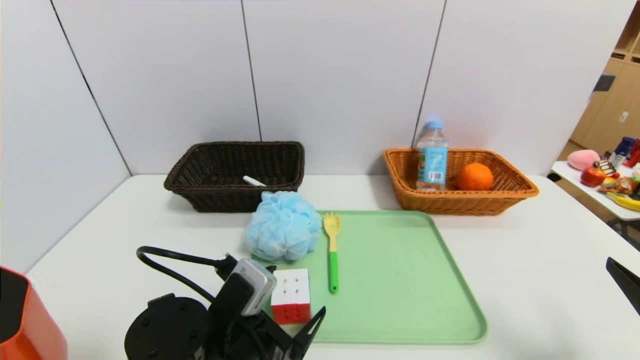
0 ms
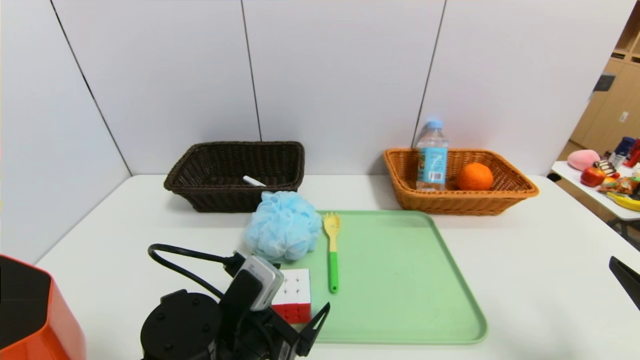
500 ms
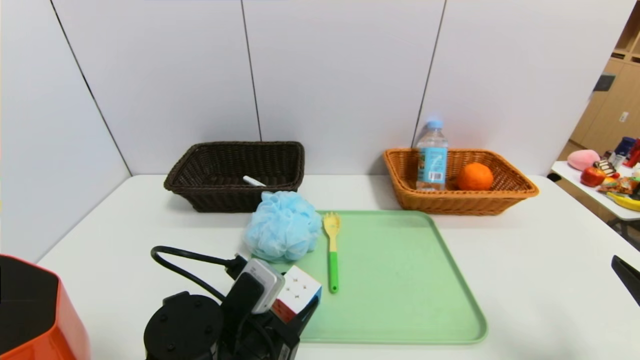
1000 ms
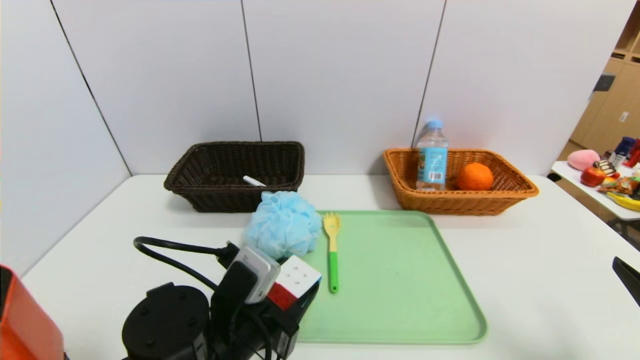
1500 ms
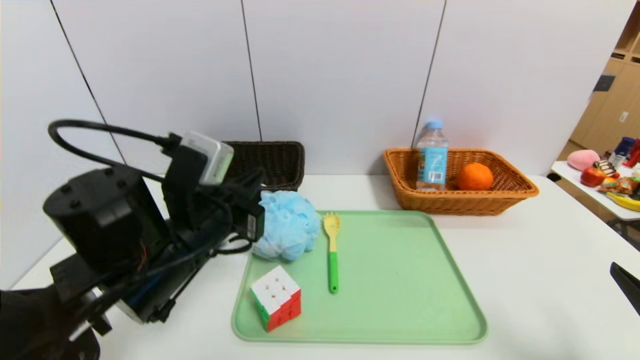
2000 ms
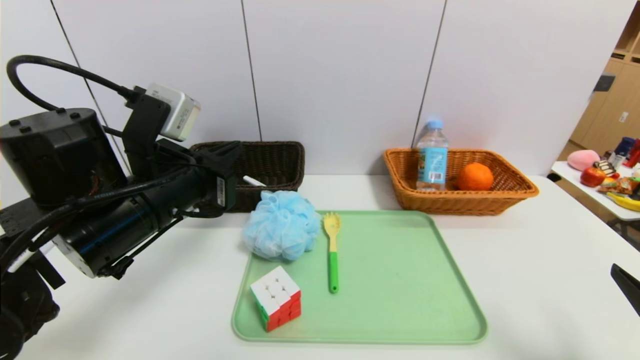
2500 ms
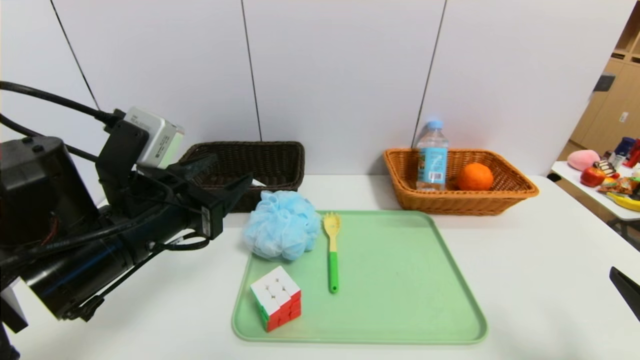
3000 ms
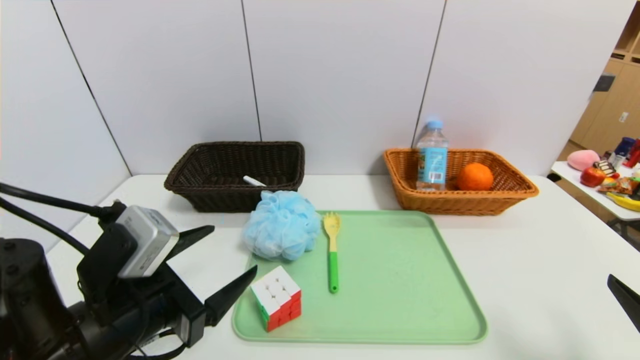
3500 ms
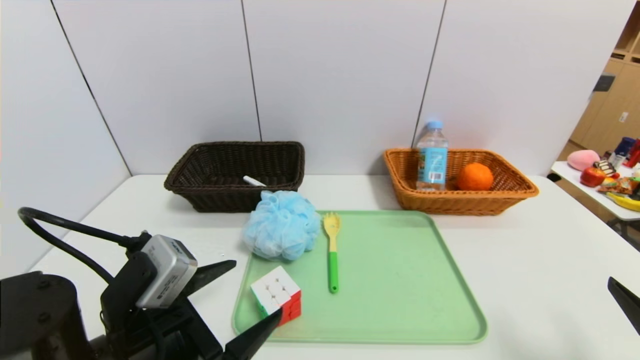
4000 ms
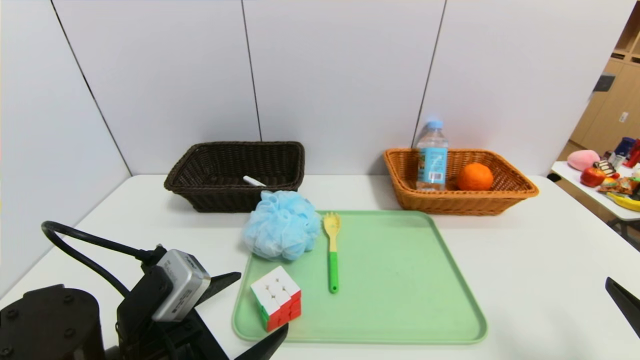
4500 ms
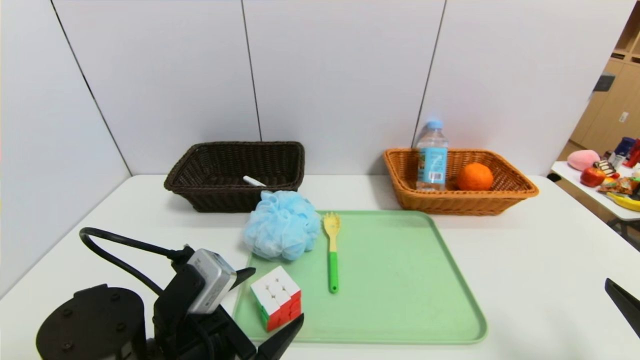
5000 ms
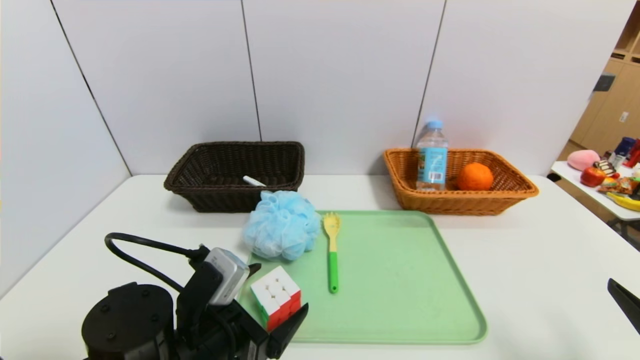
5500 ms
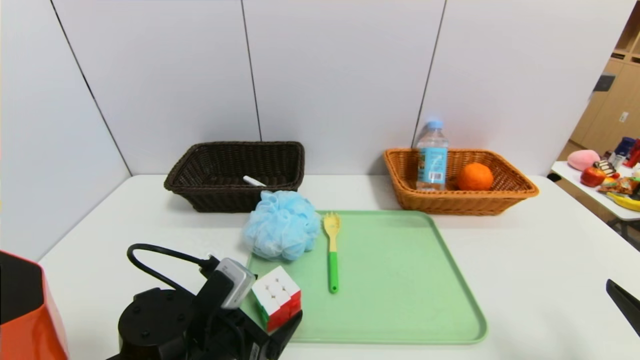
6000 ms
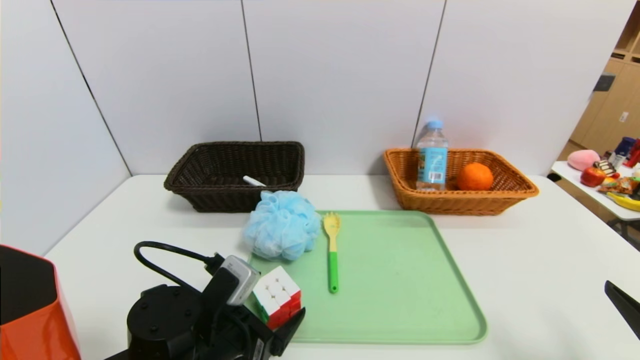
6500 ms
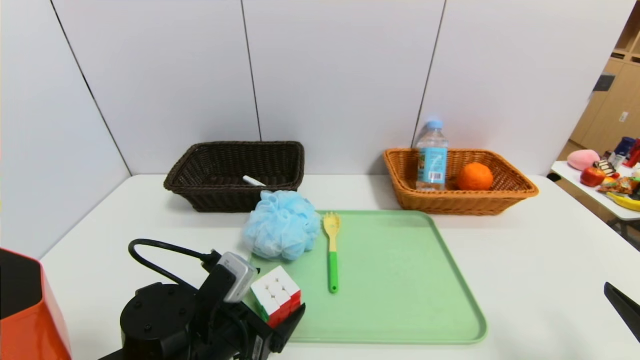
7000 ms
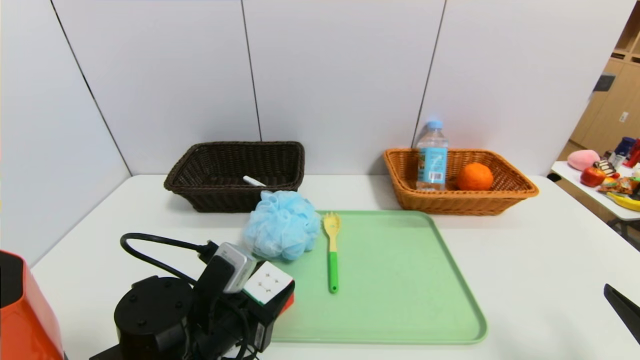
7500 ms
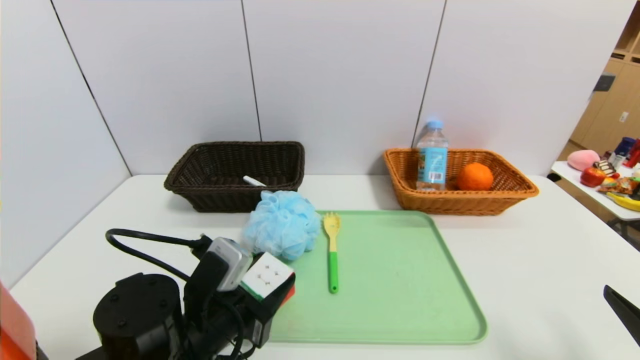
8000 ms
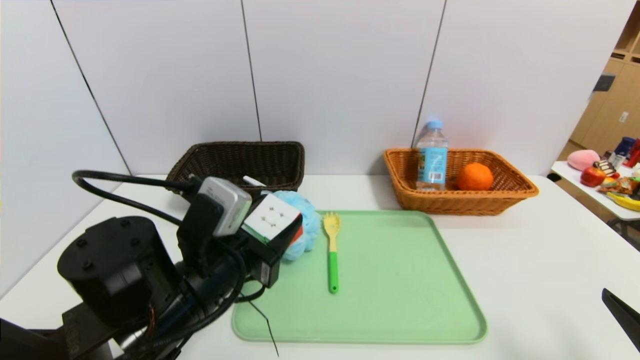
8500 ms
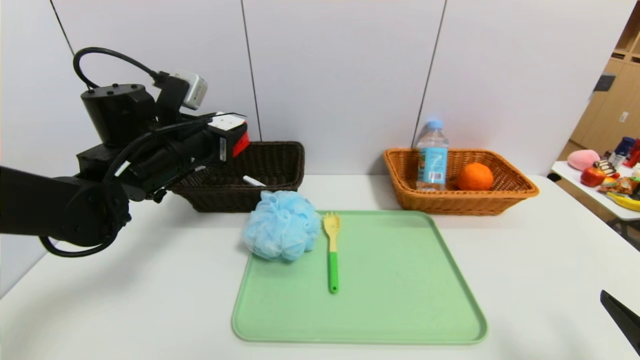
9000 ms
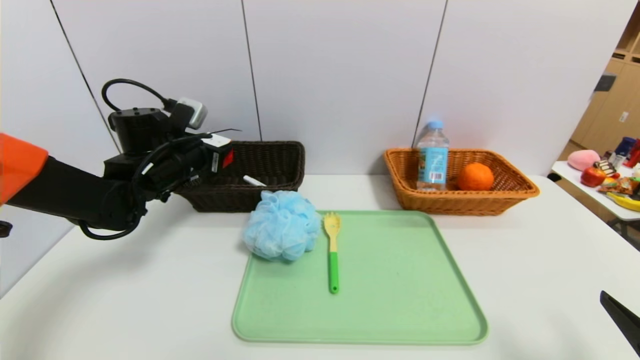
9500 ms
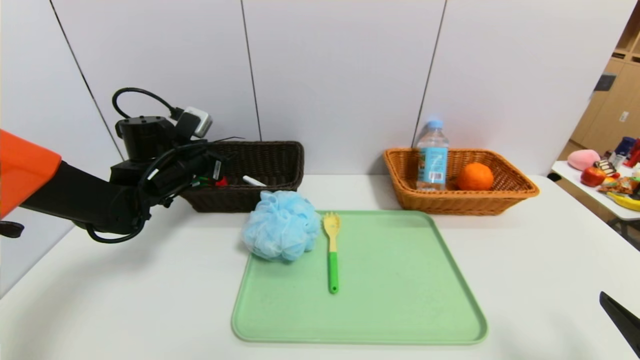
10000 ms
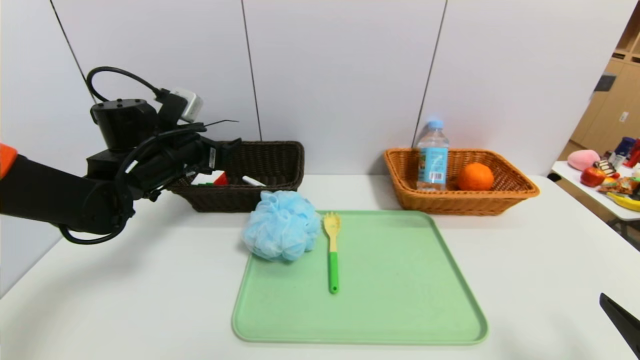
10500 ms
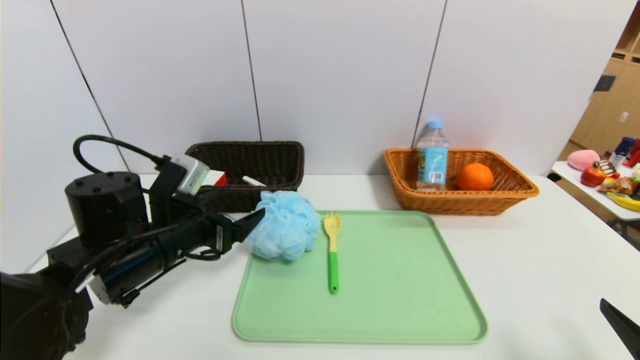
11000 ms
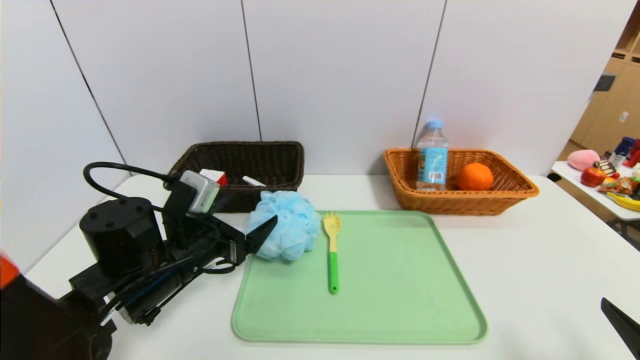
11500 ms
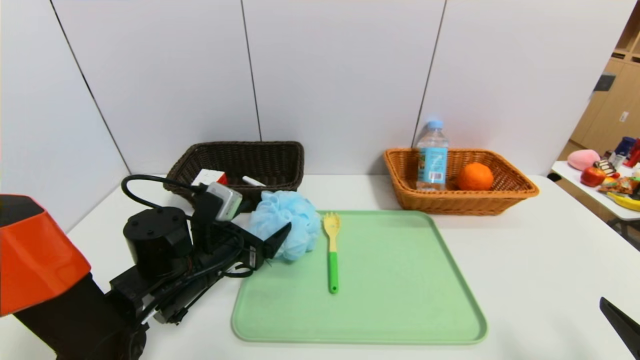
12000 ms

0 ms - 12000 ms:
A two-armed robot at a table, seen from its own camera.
Task of the whole recording: place the food in the right basket with the right gripper, and place the non food items in the left basket with the left gripper.
Step, 0 ms - 10000 ms: Grasp the rubiks cube and put it in the left basket.
0 ms - 2000 ms: The left gripper shifts some 15 cm upward and forward, and closes its fingers.
2000 ms - 4000 ms: The left gripper travels backward and downward by approximately 10 cm, and opens its fingers.
4000 ms - 6000 ms: The left gripper shifts approximately 10 cm downward.
6000 ms - 8000 ms: The left gripper closes.
8000 ms - 10000 ms: The left gripper goes approximately 25 cm forward and to the left.
10000 ms - 12000 ms: The left gripper goes roughly 15 cm backward, to the right and downward.

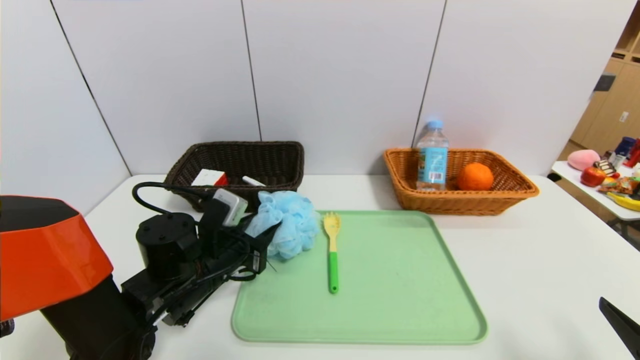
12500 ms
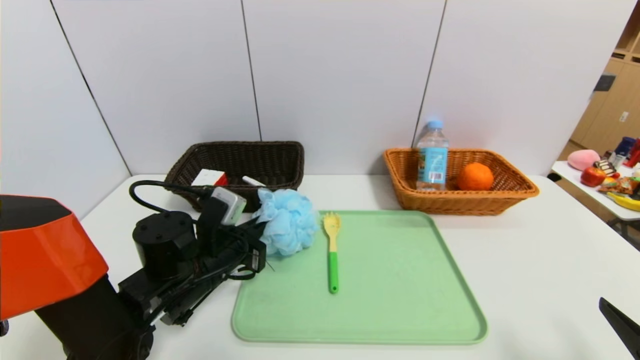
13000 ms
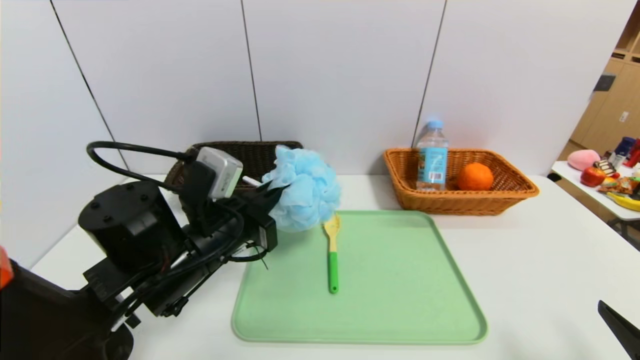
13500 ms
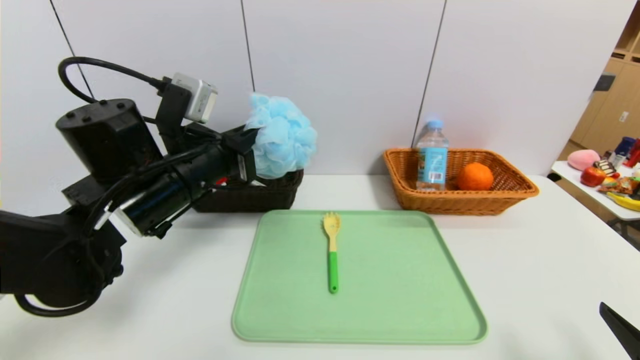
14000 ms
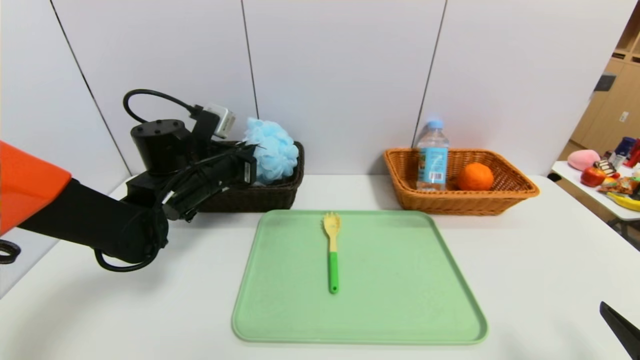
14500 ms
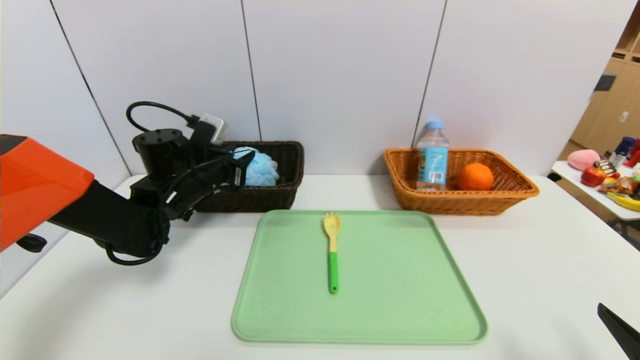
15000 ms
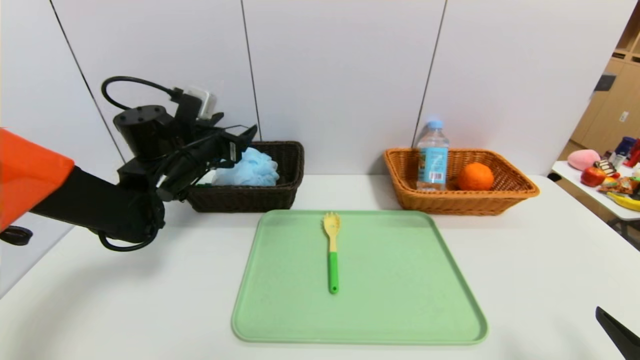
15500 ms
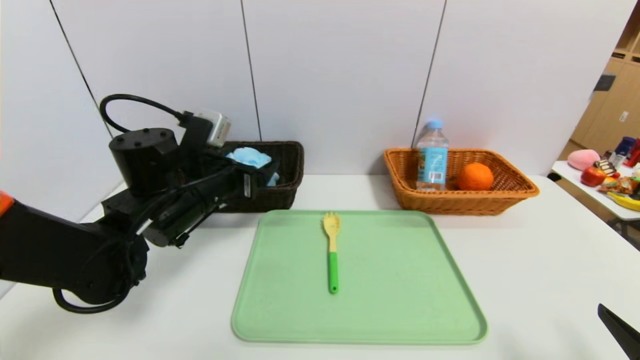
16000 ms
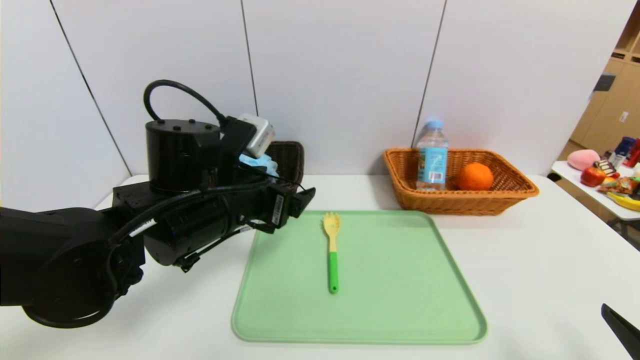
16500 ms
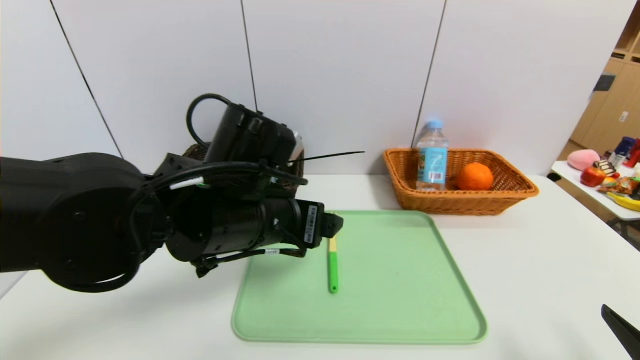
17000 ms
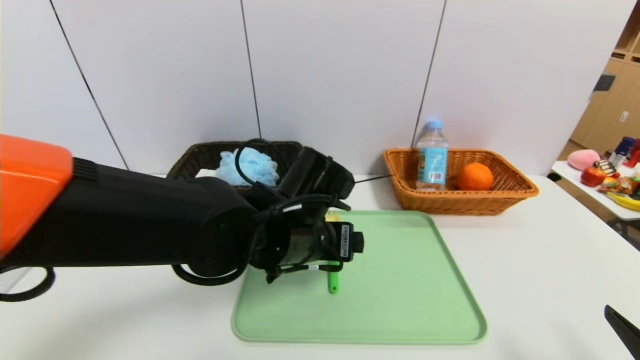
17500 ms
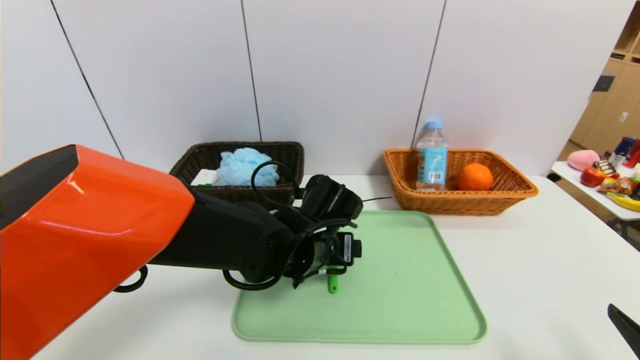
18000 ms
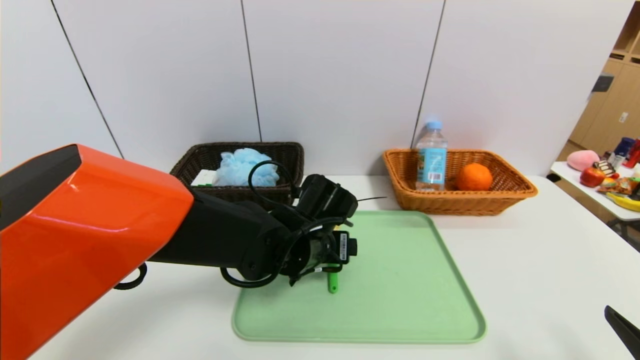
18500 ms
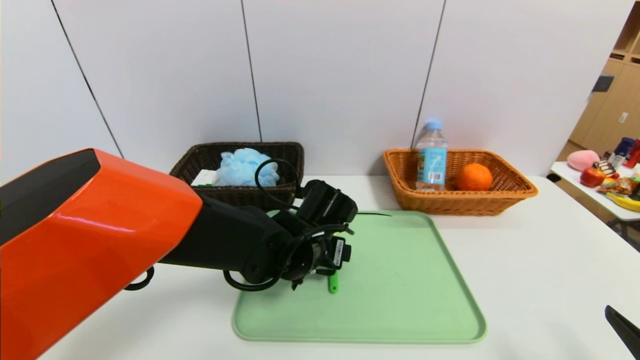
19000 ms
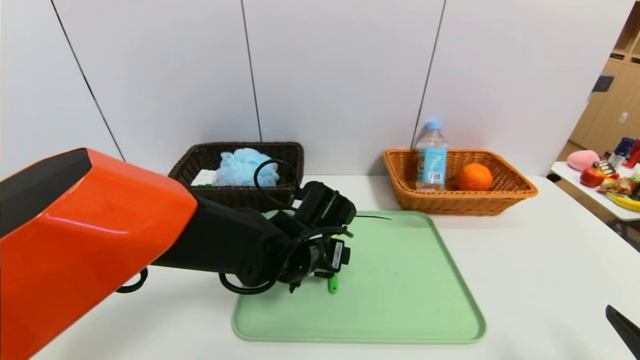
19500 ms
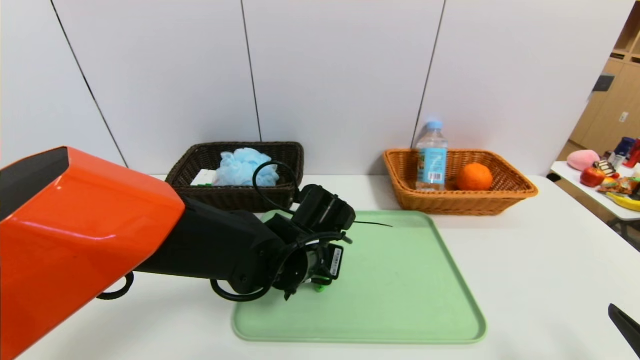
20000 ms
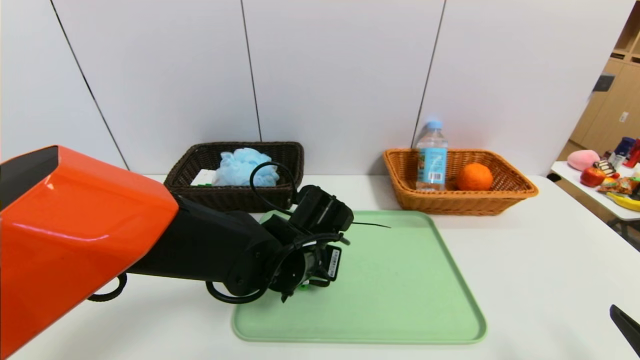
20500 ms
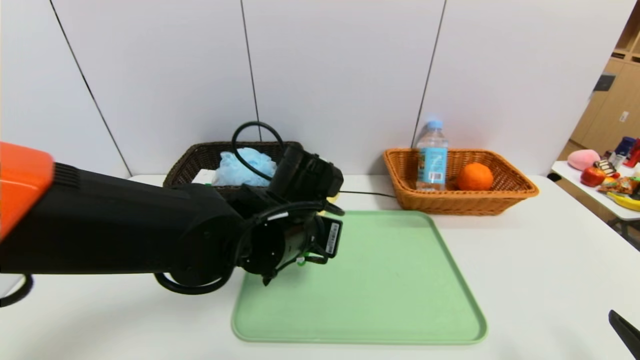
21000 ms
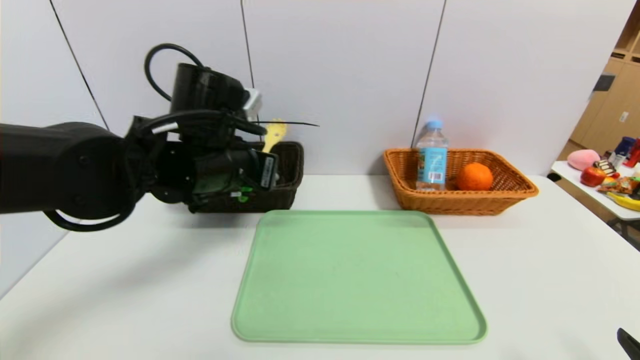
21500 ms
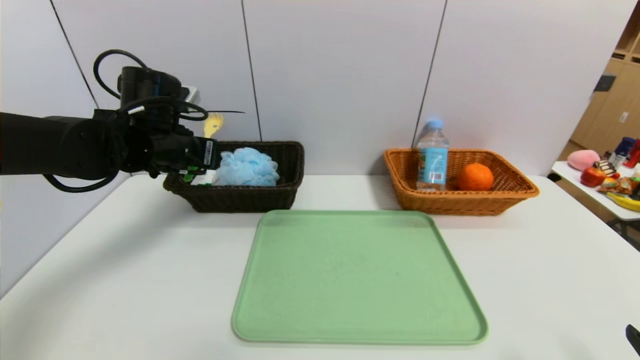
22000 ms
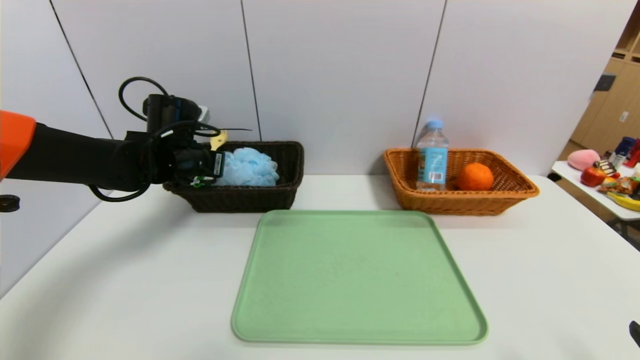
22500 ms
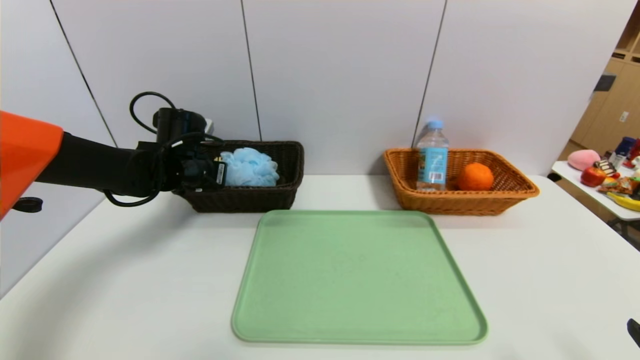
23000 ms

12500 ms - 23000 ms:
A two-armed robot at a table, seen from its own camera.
Task of the whole recording: place the food in the right basket with the right gripper, and place the non food items in the left basket with the left gripper.
Step, 12500 ms - 15000 ms: Grasp the shower sphere and put it in the left basket.
12500 ms - 14500 ms: The left gripper is displaced forward and upward by about 15 cm.
14500 ms - 16500 ms: The left gripper goes some 15 cm backward and to the right, and opens up.
16500 ms - 19000 ms: The left gripper goes some 15 cm downward and to the right.
19000 ms - 21000 ms: The left gripper shifts about 10 cm upward, and closes.
21000 ms - 23000 ms: The left gripper moves to the left and forward, approximately 25 cm.
